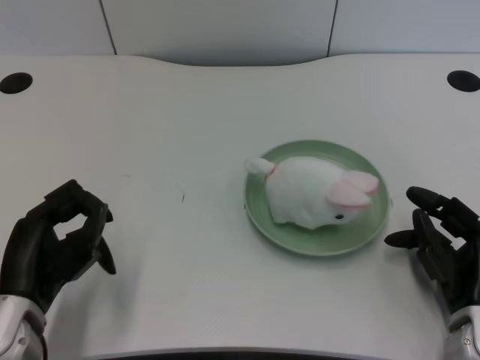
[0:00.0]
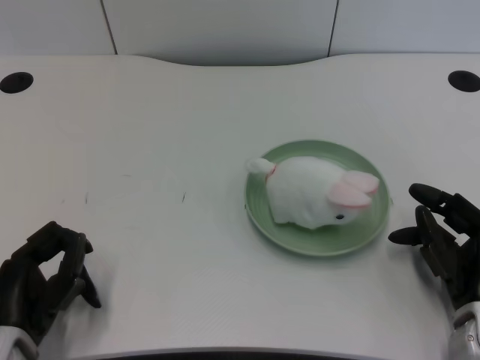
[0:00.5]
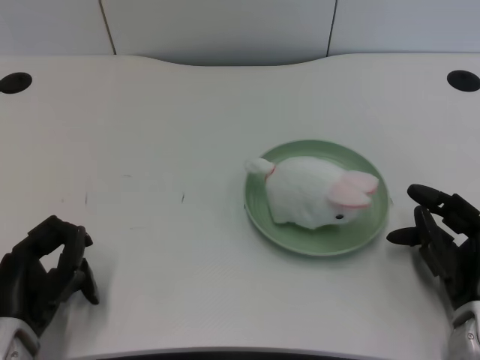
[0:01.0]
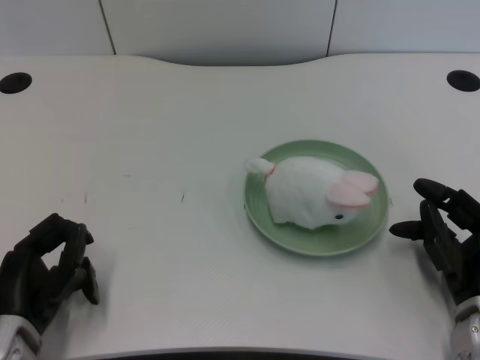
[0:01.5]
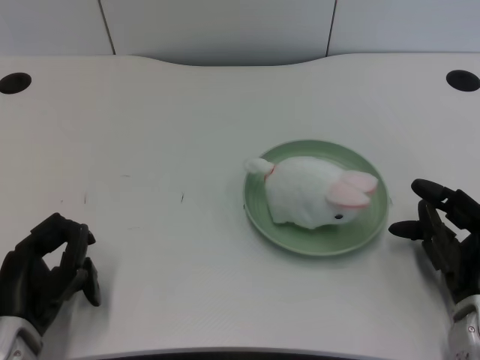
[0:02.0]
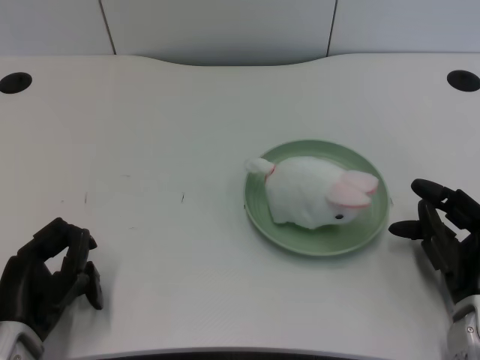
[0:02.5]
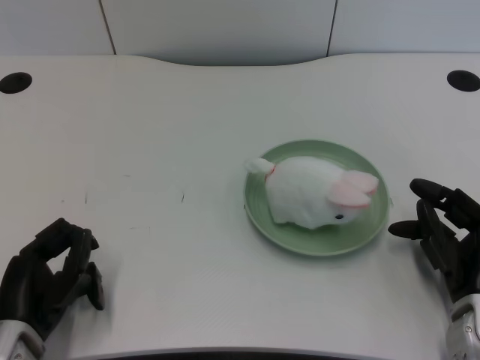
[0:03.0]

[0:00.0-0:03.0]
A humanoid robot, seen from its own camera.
Task of the whole recording: pick up the rabbit doll from the table and place it on the plate.
0:00.0 to 0:01.5: The hands move only a little.
0:01.5 to 0:03.0: The two hands keep their place.

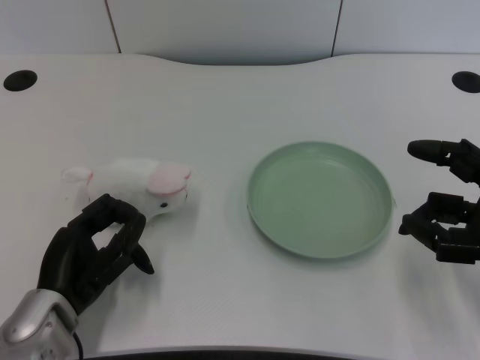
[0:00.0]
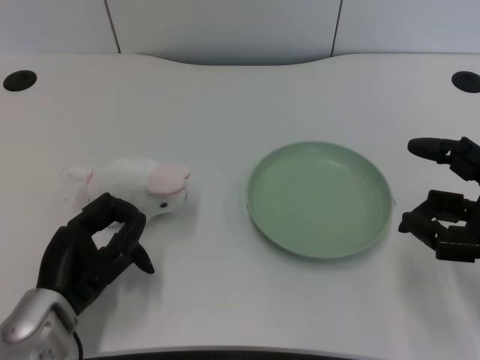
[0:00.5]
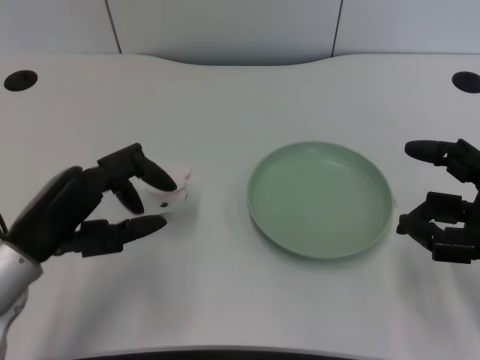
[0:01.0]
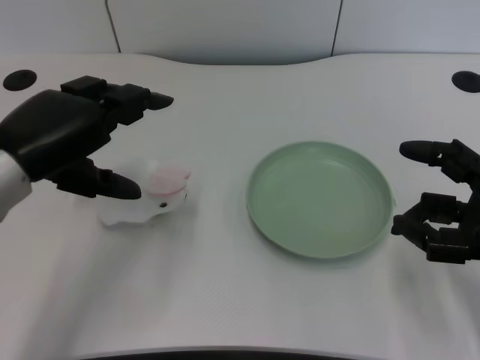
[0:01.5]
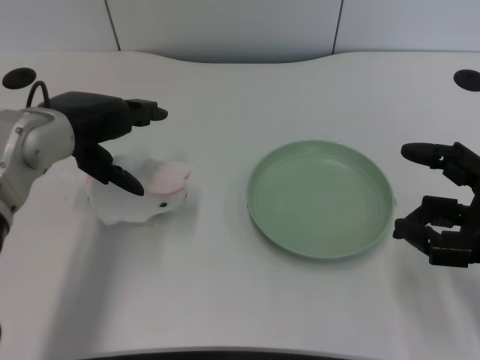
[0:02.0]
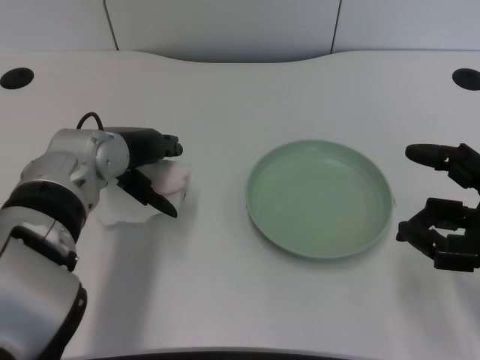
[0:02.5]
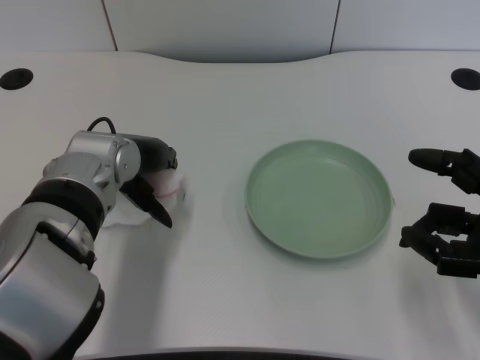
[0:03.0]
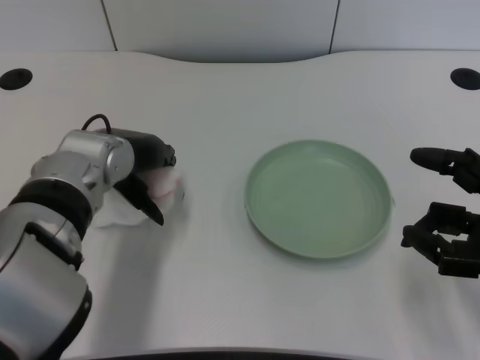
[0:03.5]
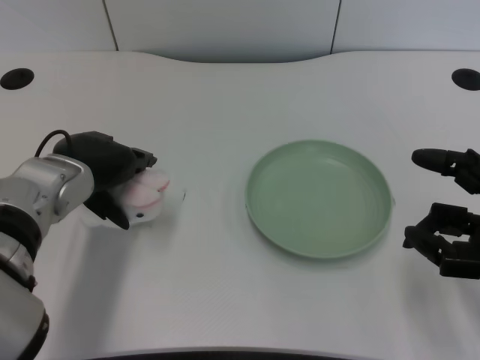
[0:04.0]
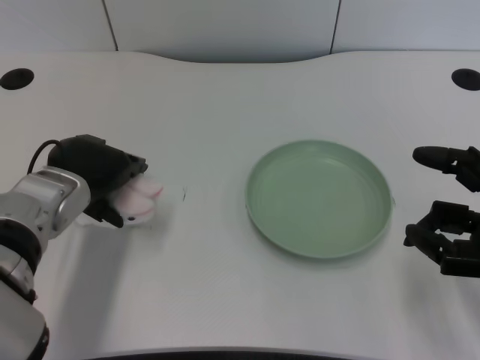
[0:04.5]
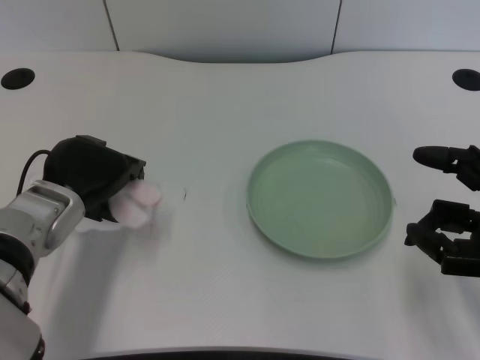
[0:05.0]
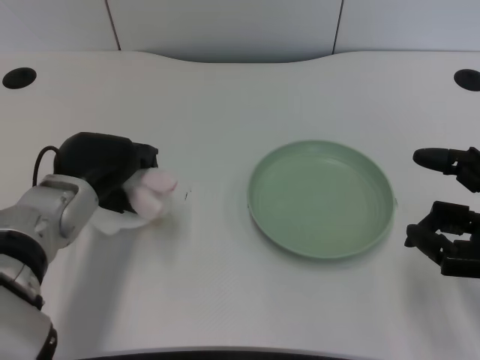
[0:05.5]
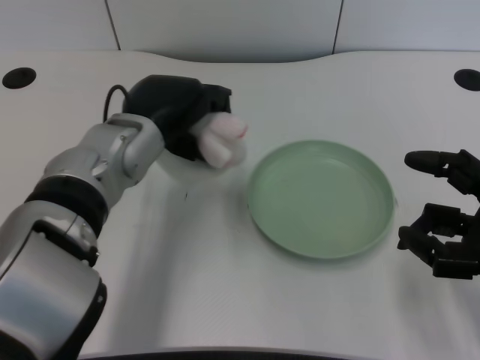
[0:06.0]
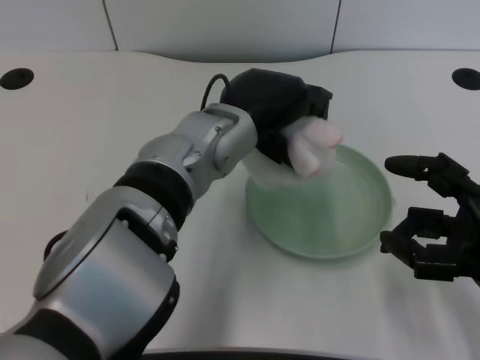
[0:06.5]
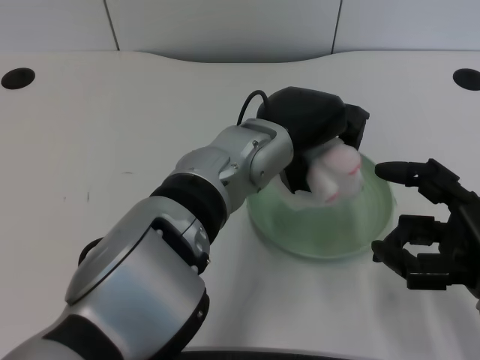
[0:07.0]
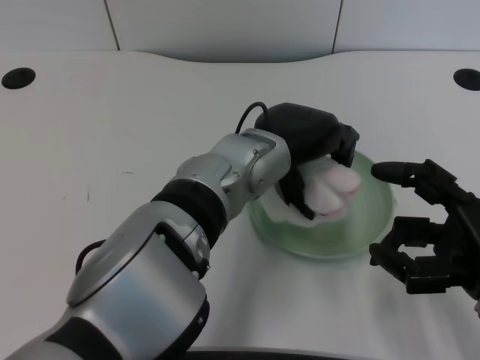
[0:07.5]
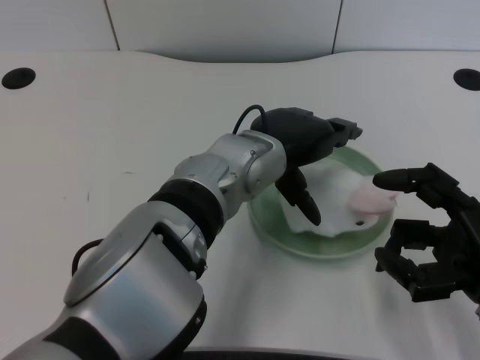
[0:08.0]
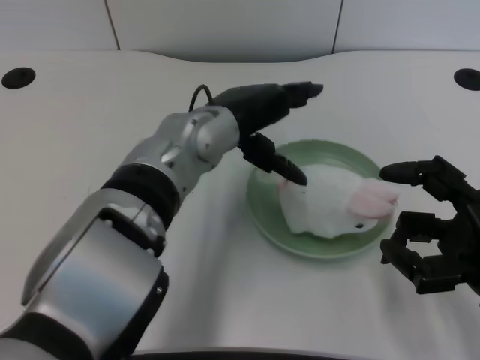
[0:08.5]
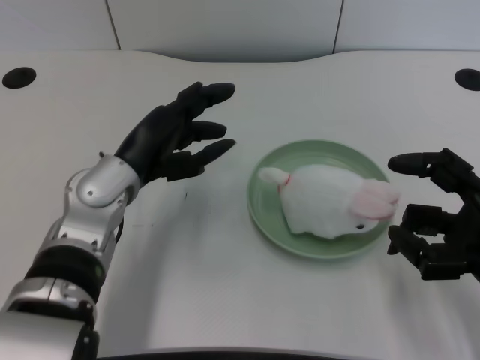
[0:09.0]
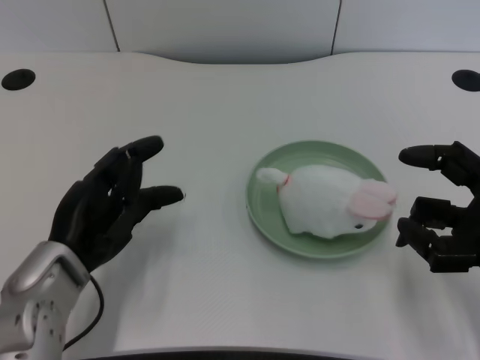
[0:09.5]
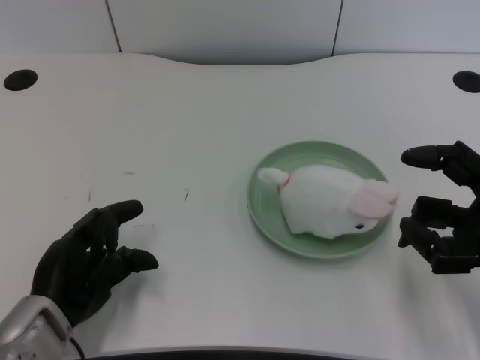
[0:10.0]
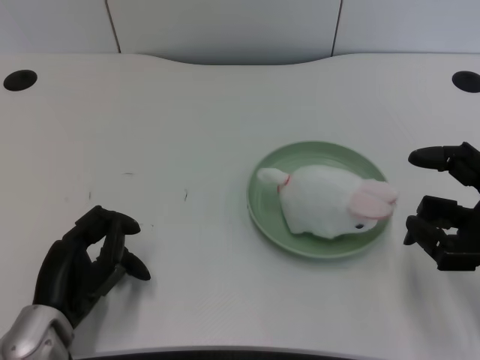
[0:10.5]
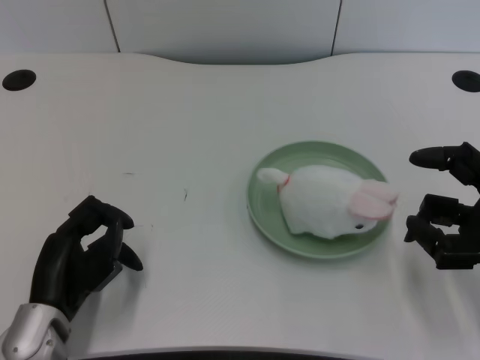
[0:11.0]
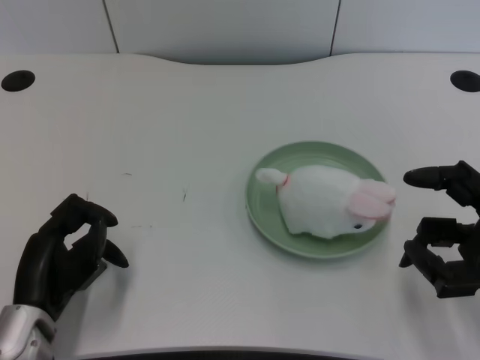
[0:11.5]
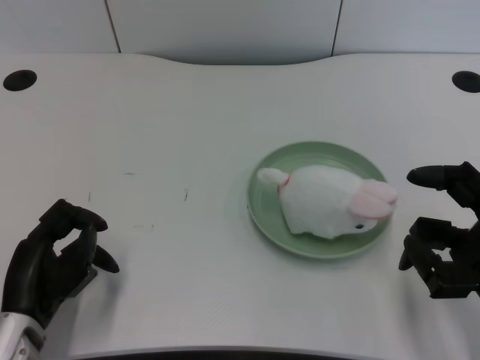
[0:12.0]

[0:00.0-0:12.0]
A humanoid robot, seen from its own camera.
Task of the whole recording: pick up the rabbit doll from the table and place it on the plate.
Step, 0:01.0 to 0:05.5: Grasp the rabbit doll with the left gripper.
Step, 0:06.0 to 0:07.5: Place the rabbit doll into the plate with the left gripper.
0:02.0 to 0:04.0: The left hand heads downward, covering approximately 5 cm.
0:04.0 to 0:06.0: The left hand moves to the right, about 5 cm.
0:06.0 to 0:08.0: The left hand travels to the right by about 10 cm.
0:08.0 to 0:10.0: The left hand shifts roughly 25 cm to the left, backward and downward.
